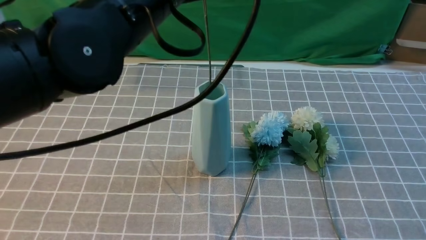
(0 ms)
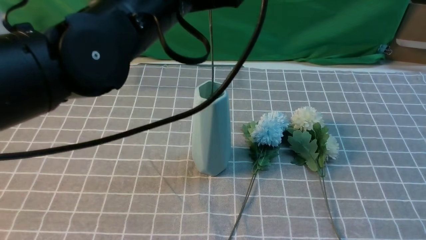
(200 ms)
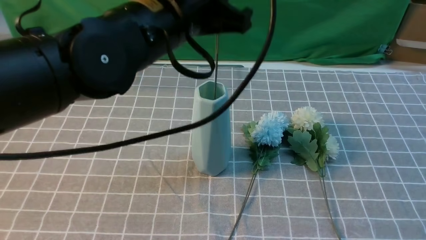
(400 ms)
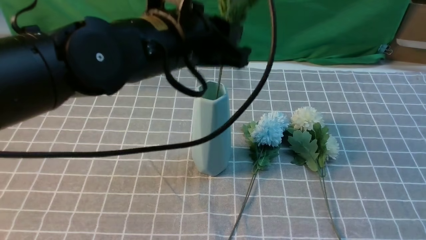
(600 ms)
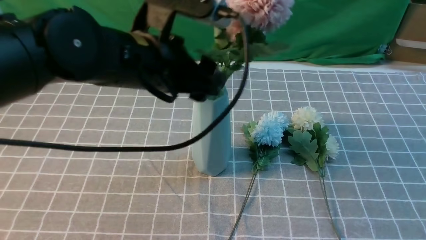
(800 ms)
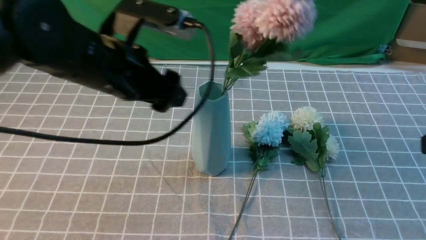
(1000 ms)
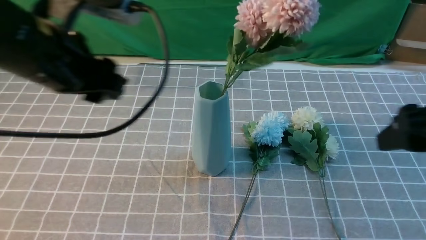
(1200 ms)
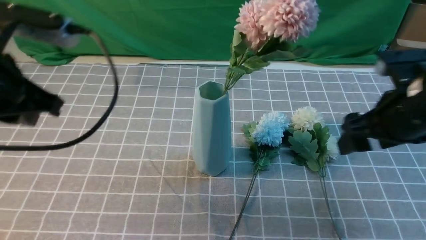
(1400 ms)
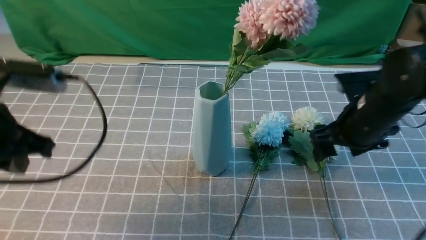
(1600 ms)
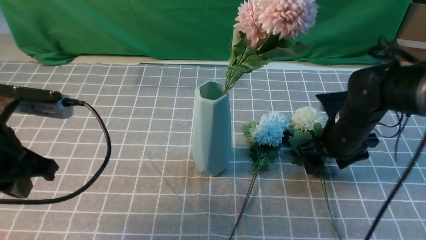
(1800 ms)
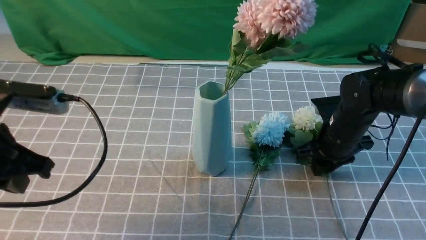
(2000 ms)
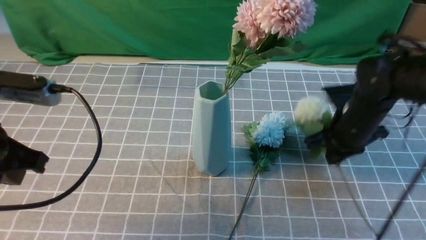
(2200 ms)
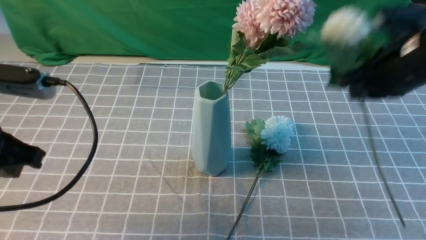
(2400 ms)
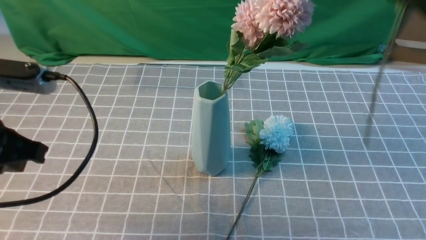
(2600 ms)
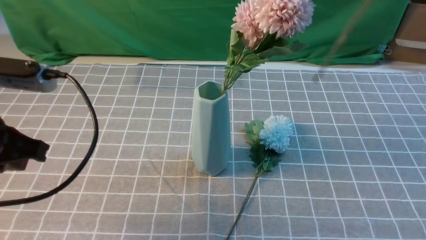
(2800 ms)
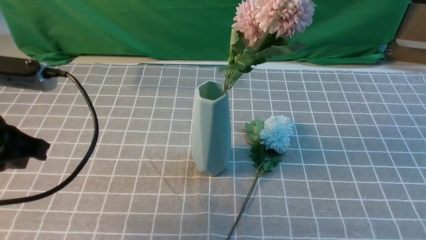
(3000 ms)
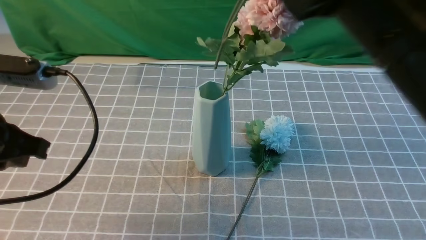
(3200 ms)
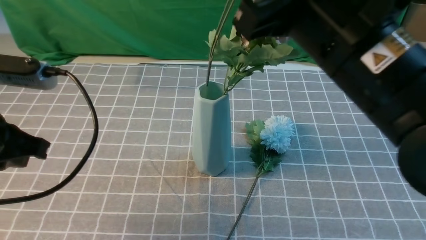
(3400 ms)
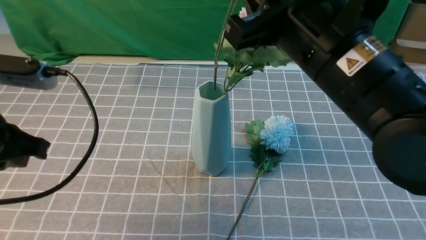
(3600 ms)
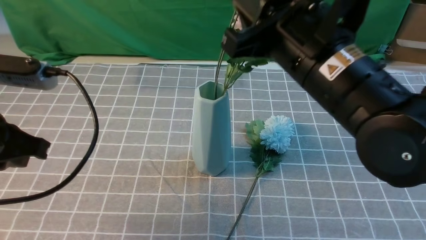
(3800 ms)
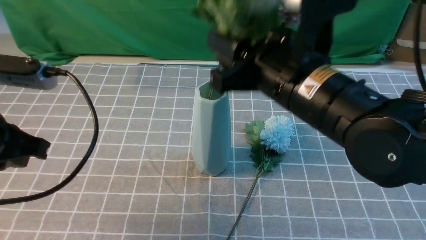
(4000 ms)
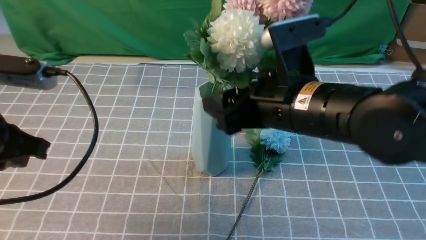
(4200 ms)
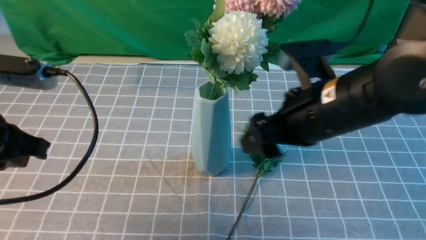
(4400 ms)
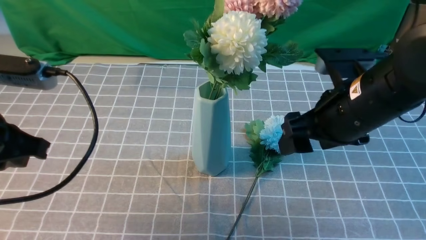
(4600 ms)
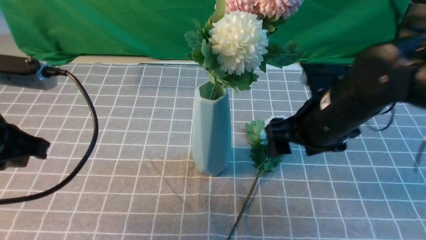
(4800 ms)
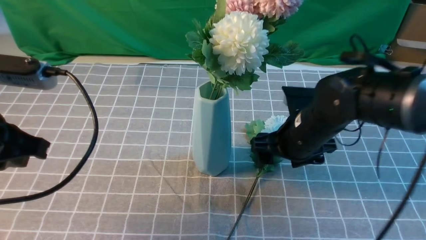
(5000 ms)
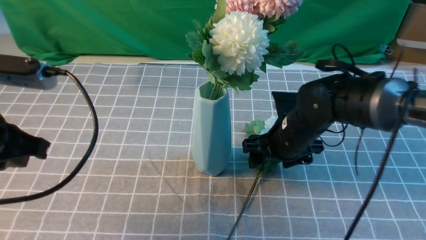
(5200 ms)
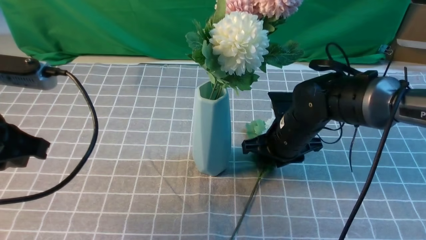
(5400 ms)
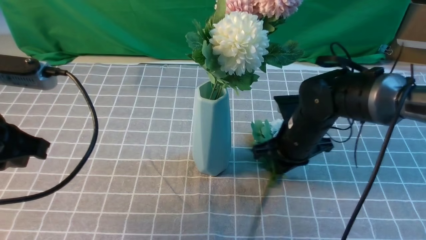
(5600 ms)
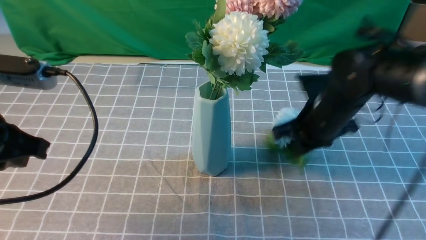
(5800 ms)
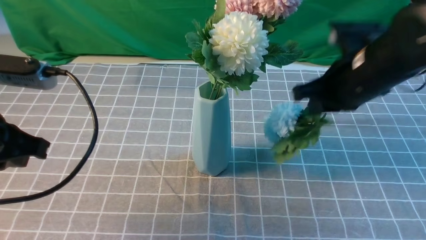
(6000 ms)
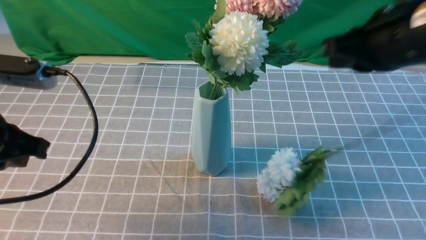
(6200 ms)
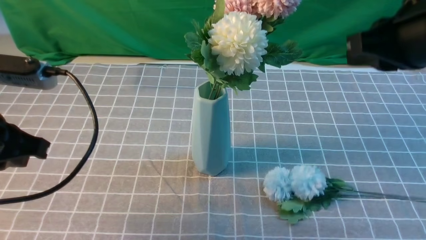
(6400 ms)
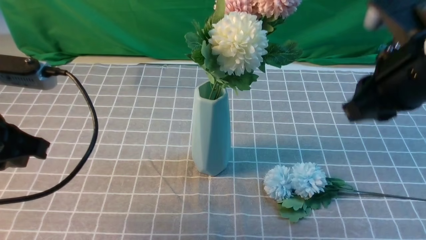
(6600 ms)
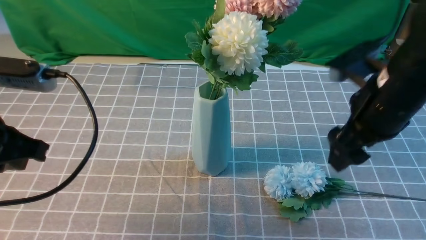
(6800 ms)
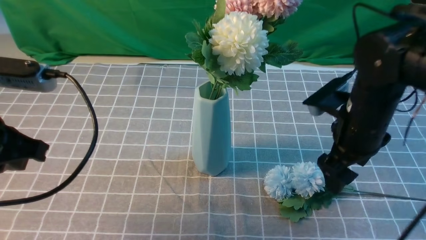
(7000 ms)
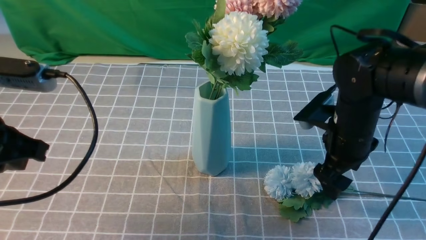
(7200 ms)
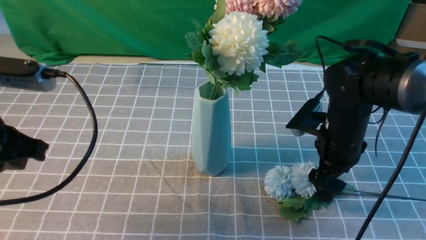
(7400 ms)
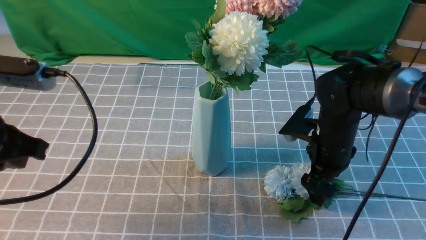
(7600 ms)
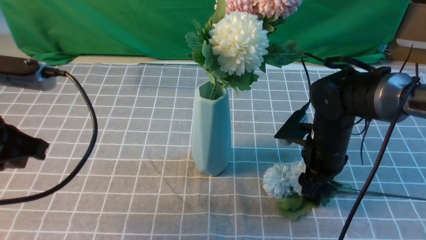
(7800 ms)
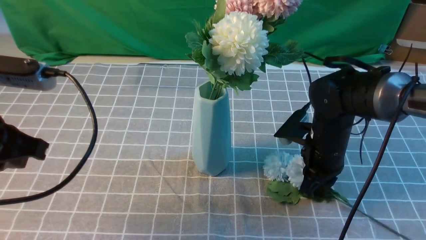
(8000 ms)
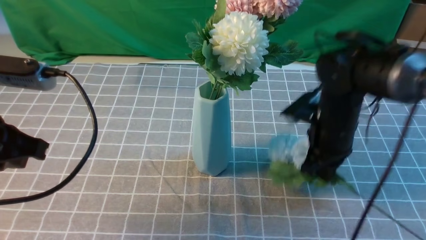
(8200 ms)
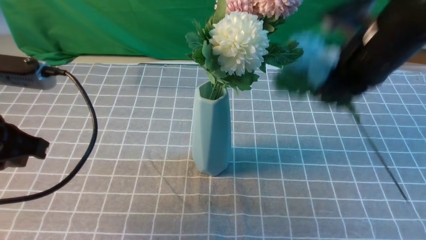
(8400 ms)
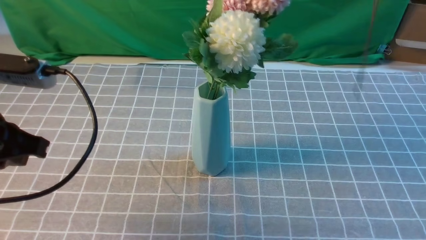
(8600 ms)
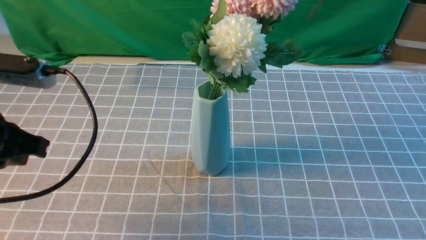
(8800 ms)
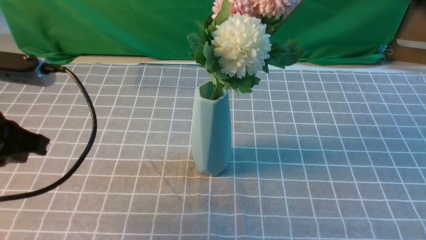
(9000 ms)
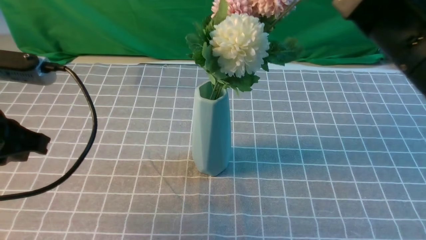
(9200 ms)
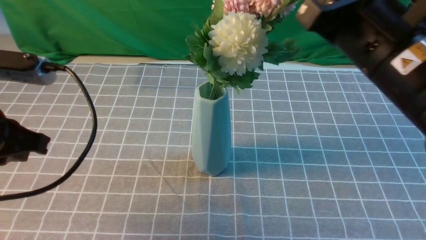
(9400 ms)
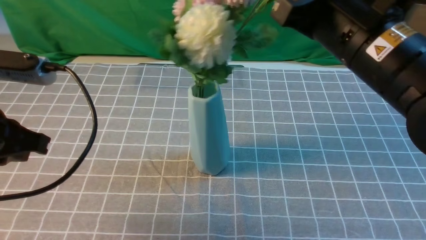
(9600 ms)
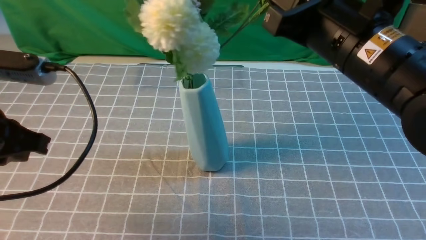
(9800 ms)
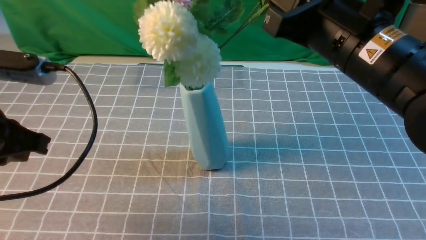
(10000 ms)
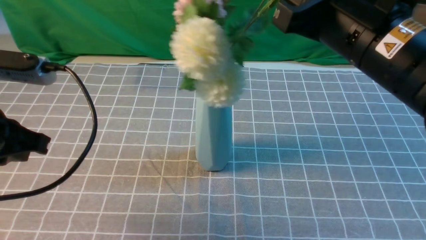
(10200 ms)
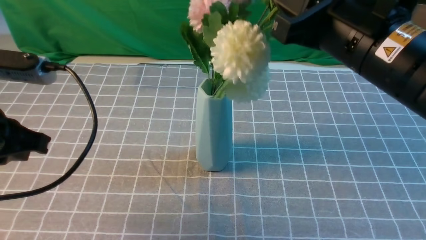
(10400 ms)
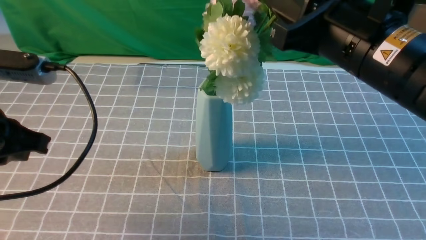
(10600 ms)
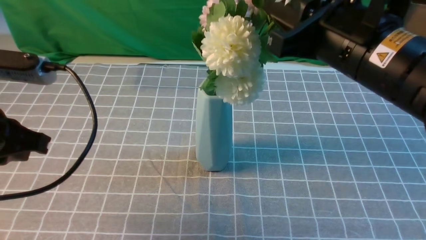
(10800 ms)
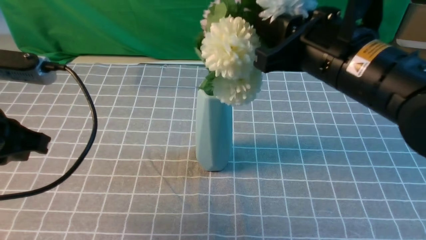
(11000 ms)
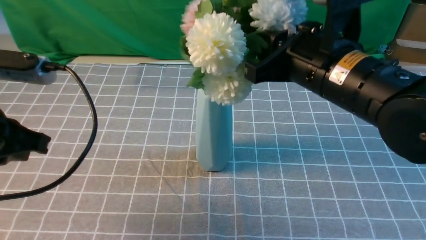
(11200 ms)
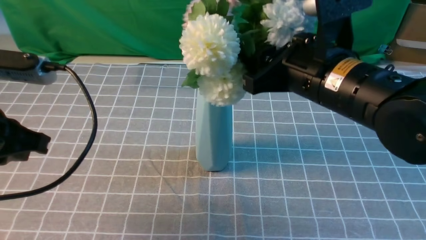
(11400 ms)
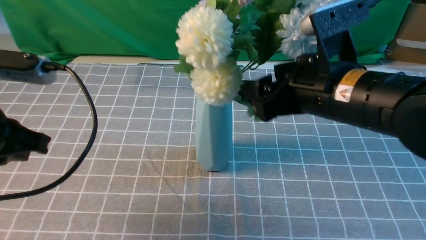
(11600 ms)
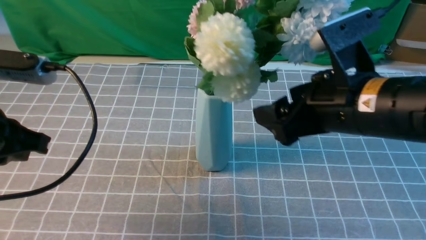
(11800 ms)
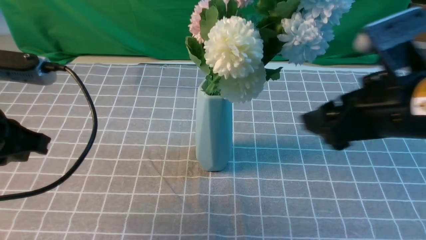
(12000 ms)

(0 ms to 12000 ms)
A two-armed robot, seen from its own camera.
Task of the whole recording: insert the flowers into the vase on the table with the grey tablecloth.
Step, 1000 ms - 2000 ms: use the right arm to grab a bunch of fresh flowers.
Step, 2200 ms - 4200 ms: use the right arm to insert the flowers into the vase.
Step, 4400 ms - 8000 ms: use the right arm to grab a bunch of fresh flowers.
Step, 8200 ms - 11800 ms: use the right arm to insert the flowers into the vase.
0 ms - 1600 ms: The left gripper shifts roughly 20 cm to the left and downward, and opens, then closes once more. Meanwhile the right gripper shifts roughly 25 cm forward and downward, and opens.
1600 ms - 3000 ms: The right gripper is displaced upward and backward by approximately 30 cm, and closes its fingers.
3000 ms - 4400 ms: The right gripper travels downward and forward by some 20 cm, and opens its fingers.
4400 ms - 6000 ms: The right gripper moves to the right and forward, about 10 cm, travels downward and back again, roughly 15 cm each way, and closes.
6000 ms - 7600 ms: The right gripper is displaced downward by roughly 15 cm, and opens up.
7600 ms - 9000 ms: The right gripper heads upward and backward, covering some 30 cm, and closes its fingers.
9000 ms - 10400 ms: The right gripper shifts about 5 cm to the left.
10400 ms - 12000 ms: The right gripper is displaced to the right by approximately 5 cm, and opens up.

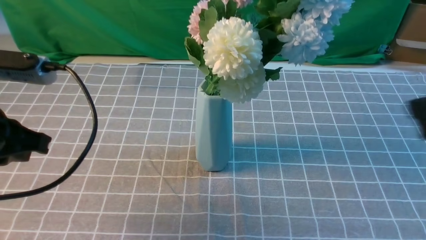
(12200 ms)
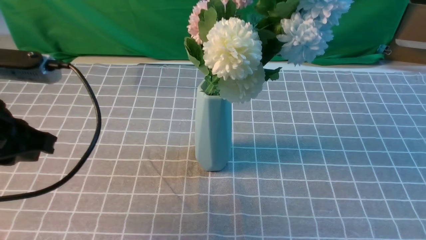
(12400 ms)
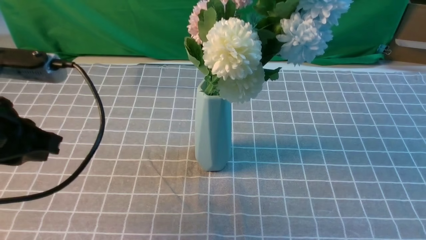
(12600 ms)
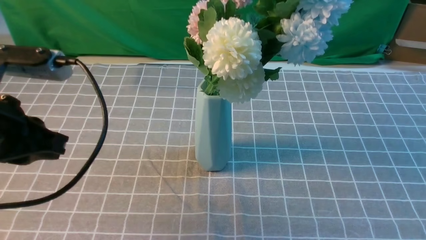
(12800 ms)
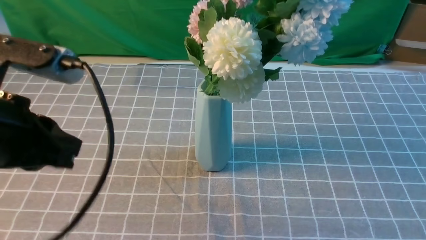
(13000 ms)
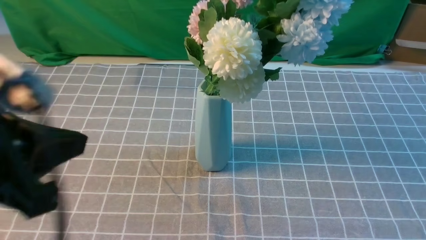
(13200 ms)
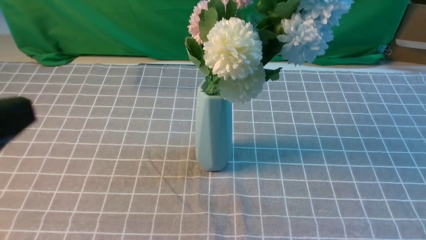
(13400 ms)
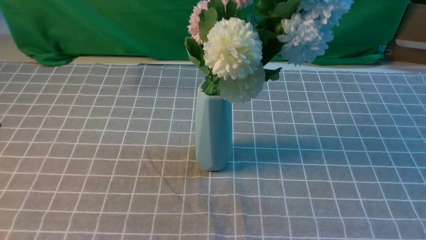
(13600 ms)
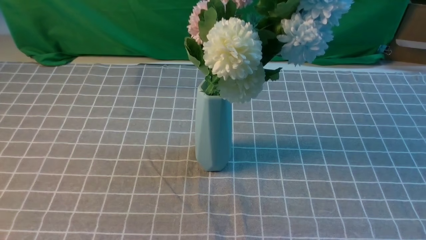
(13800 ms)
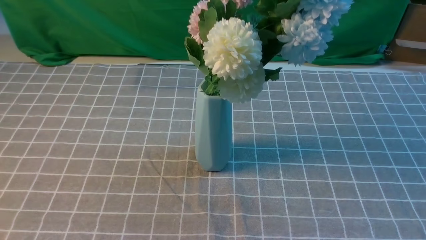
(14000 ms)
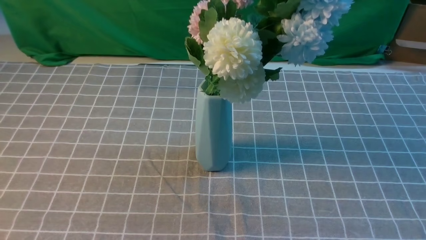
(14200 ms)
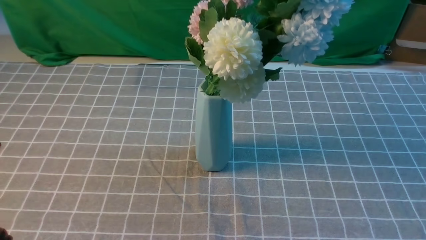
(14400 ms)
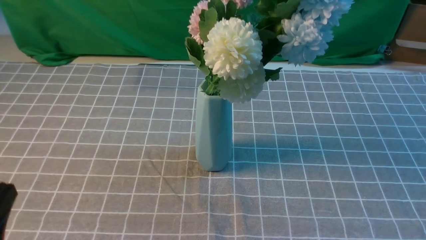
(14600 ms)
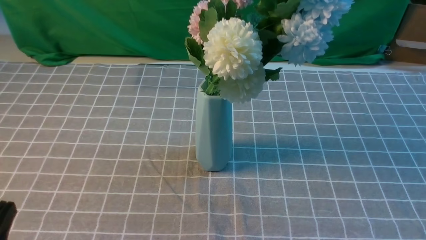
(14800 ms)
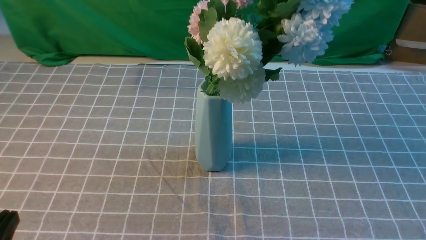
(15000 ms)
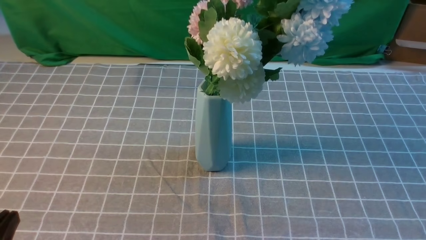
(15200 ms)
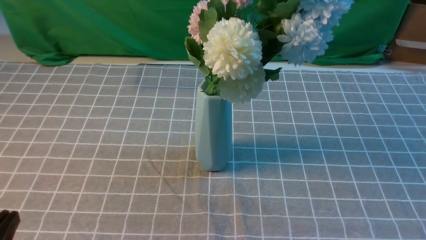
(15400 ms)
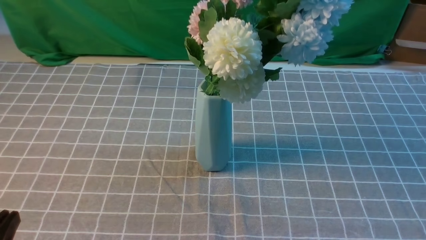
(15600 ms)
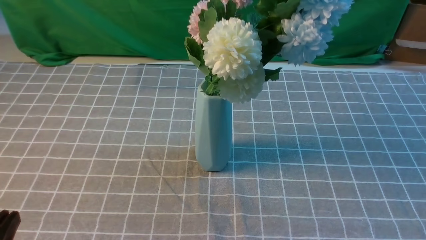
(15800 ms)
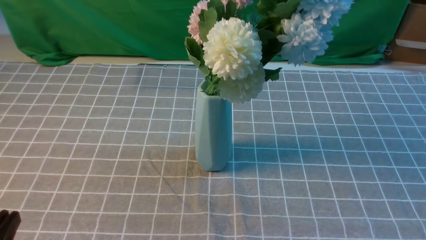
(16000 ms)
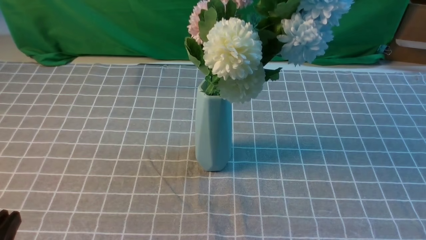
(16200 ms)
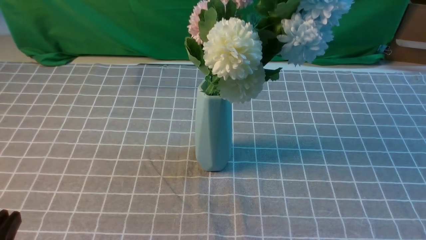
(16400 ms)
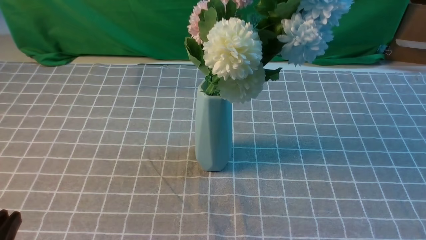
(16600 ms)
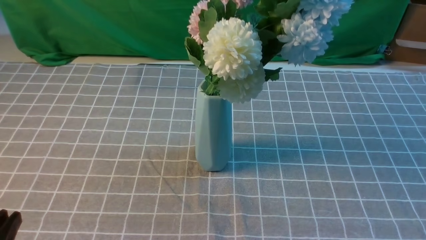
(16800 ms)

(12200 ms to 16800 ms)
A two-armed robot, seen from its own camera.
Task of the whole recording: insert the flowers into the vase on the table with the grey tablecloth.
12200 ms - 13800 ms: The right gripper moves backward and to the right, some 20 cm. The left gripper heads backward, covering some 15 cm.
